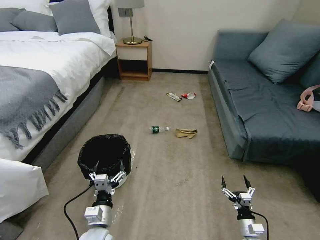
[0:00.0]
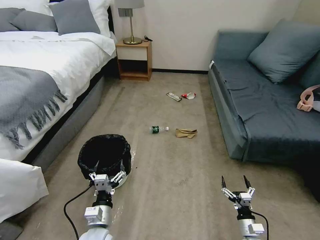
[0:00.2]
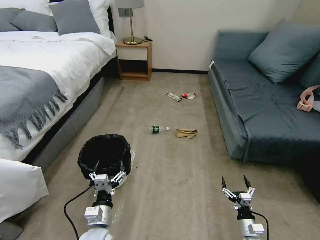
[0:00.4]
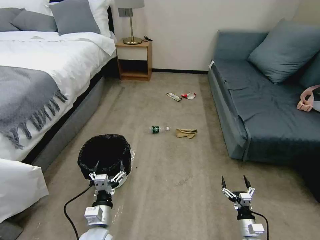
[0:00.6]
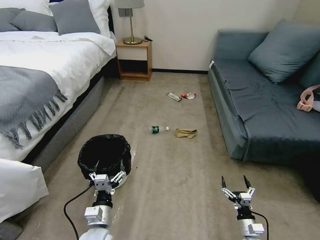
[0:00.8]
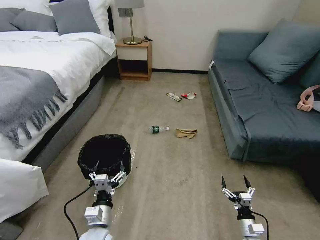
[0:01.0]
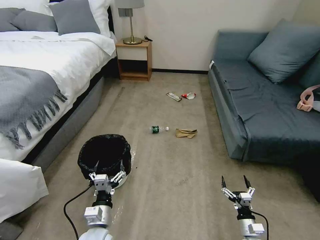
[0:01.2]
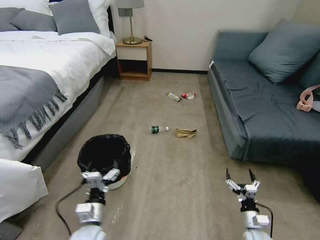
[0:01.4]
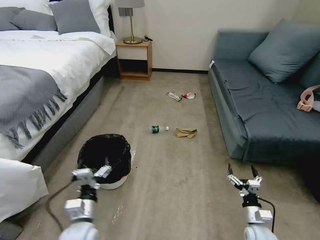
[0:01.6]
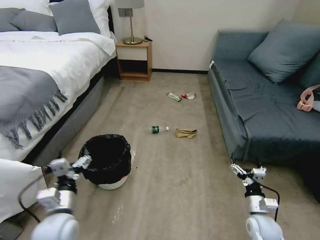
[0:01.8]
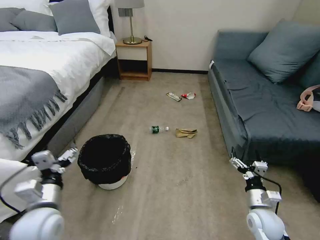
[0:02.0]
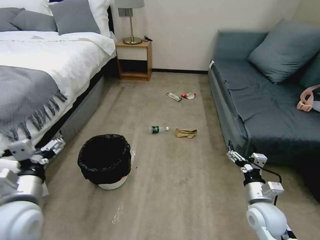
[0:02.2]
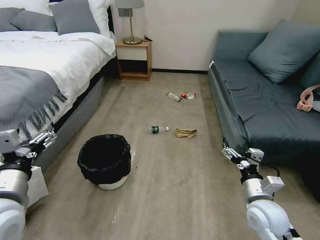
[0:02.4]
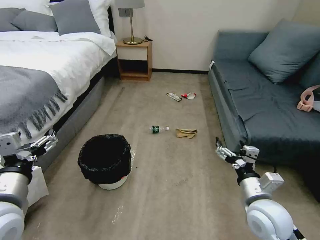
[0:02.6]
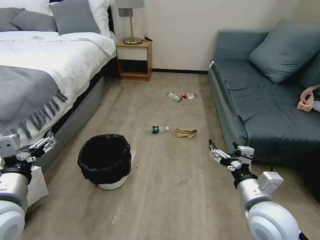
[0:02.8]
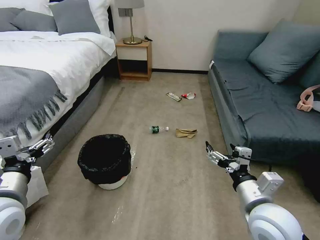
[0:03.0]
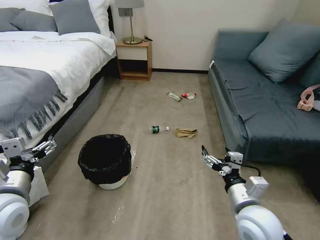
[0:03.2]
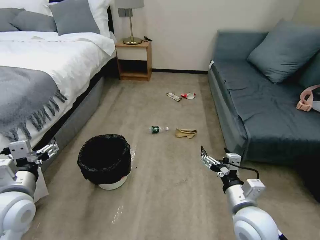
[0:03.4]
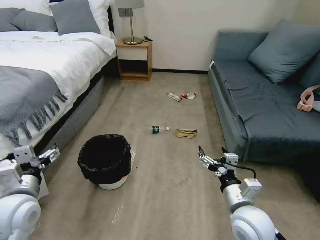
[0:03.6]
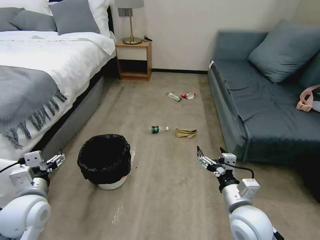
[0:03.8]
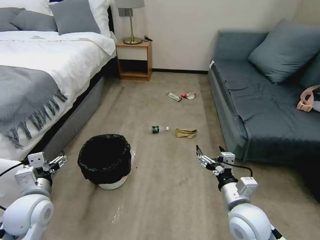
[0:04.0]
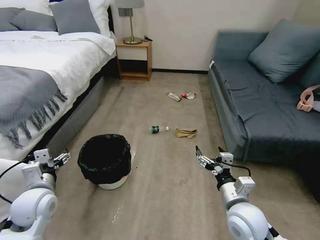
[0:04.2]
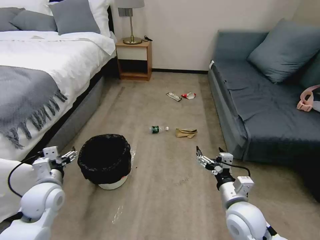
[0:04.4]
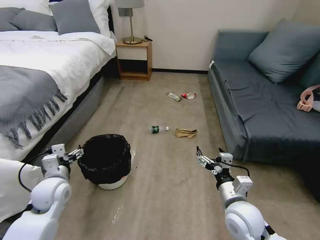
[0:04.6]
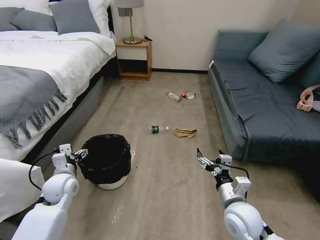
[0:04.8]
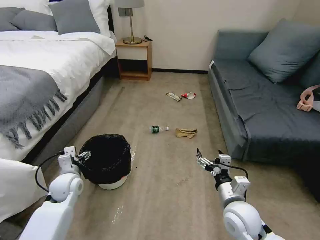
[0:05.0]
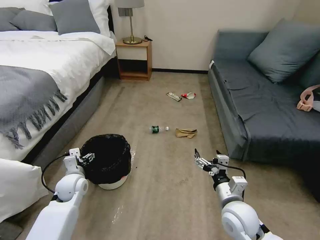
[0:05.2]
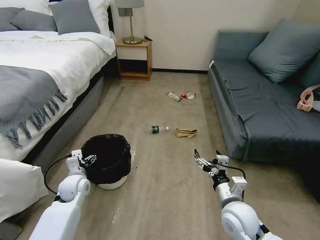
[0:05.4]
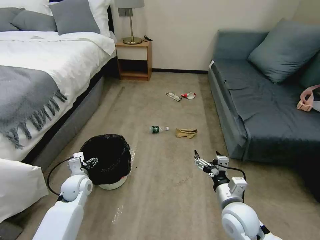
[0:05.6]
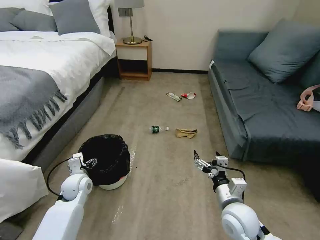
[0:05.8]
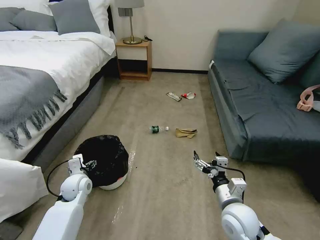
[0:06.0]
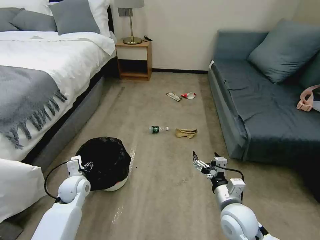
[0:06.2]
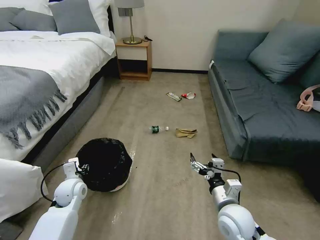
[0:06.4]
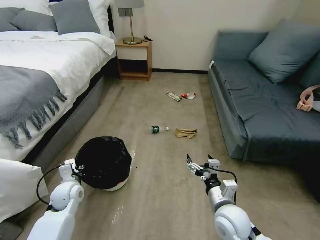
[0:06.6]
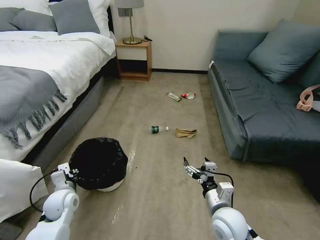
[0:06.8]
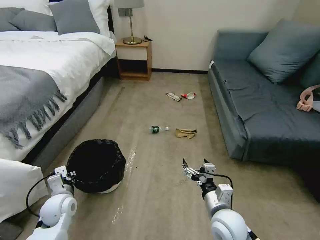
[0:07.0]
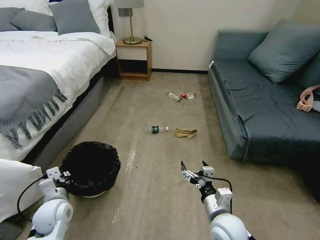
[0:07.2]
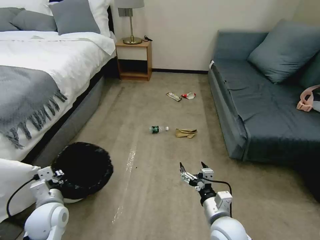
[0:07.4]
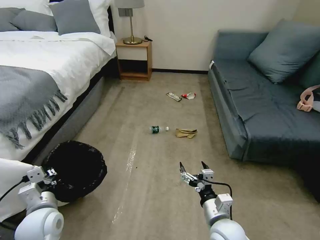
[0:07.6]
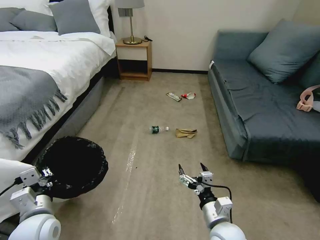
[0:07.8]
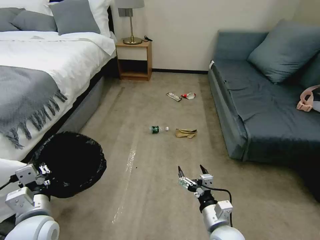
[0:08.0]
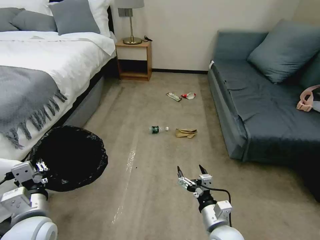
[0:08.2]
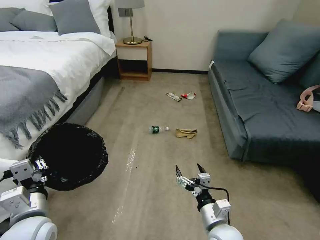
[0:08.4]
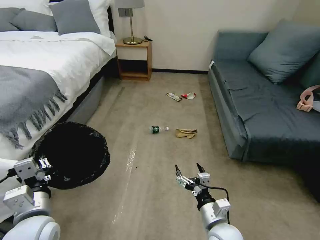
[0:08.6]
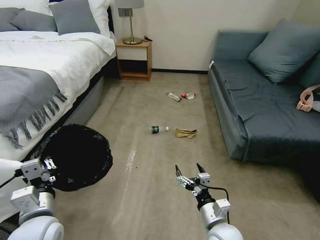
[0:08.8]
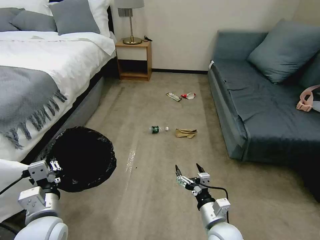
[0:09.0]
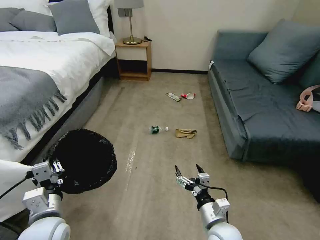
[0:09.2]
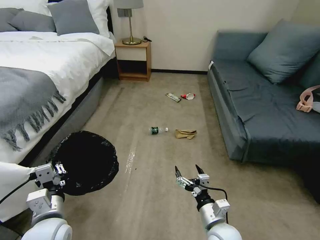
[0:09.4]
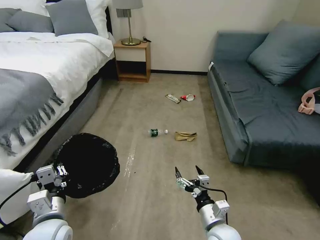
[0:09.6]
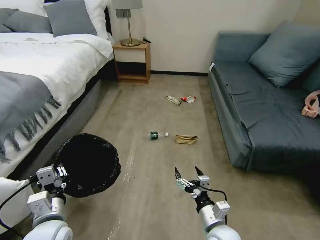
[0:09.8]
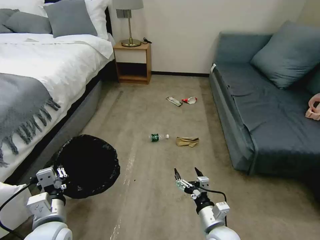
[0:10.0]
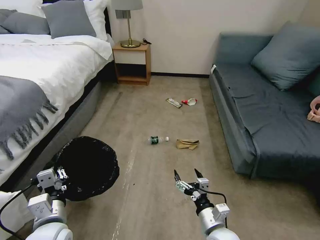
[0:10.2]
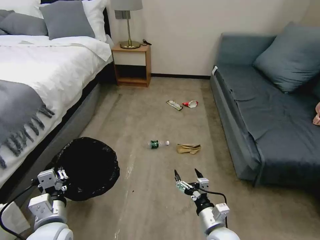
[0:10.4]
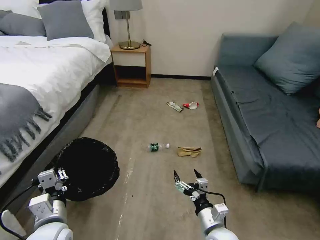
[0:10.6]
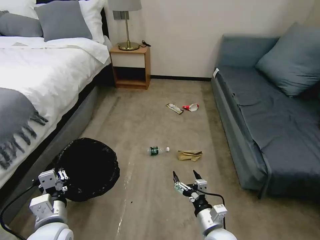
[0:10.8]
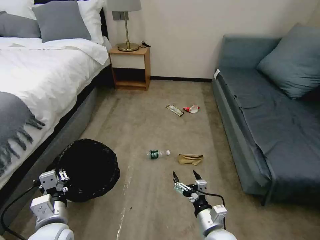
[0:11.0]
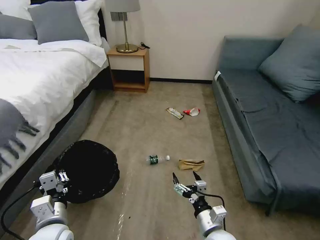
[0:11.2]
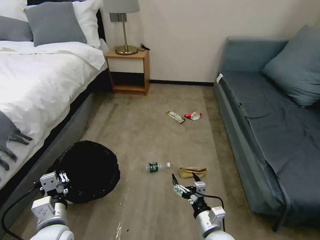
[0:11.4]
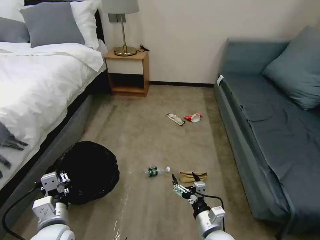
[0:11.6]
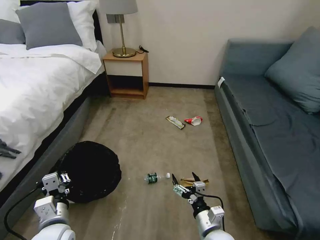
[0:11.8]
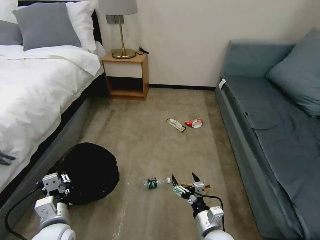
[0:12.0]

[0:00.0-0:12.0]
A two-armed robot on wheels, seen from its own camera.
Task of the whole recording: Pick up the trash bin, then pick up the garbage on the floor and place it into the trash bin.
0:01.6 to 0:03.0: The two grippers go some 25 cm upward and to the left.
0:03.0 to 0:04.4: The right gripper travels downward by some 10 cm, while the left gripper heads downward and forward, covering roughly 15 cm.
0:04.4 to 0:06.0: The left gripper travels downward and forward by about 10 cm.
0:06.0 to 0:07.6: The right gripper ends up approximately 5 cm from where it was. The left gripper travels backward and upward by approximately 15 cm, and closes up.
0:07.6 to 0:09.0: The left gripper ends up about 5 cm from where it was.

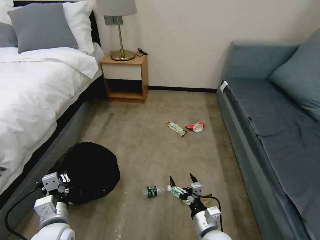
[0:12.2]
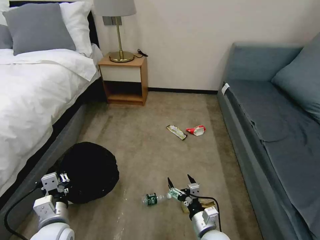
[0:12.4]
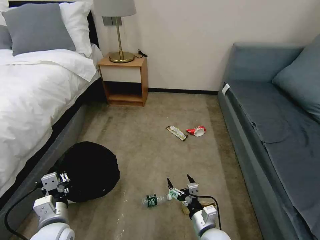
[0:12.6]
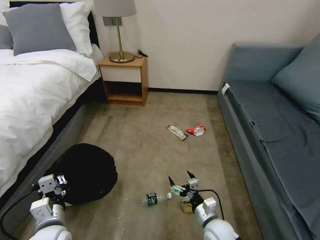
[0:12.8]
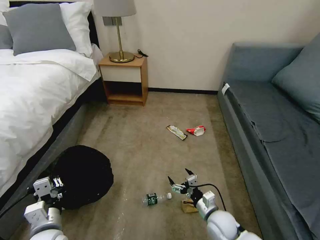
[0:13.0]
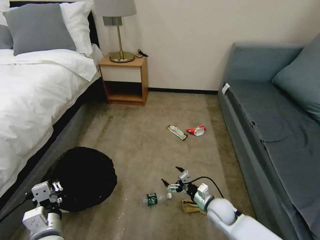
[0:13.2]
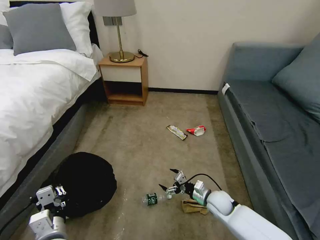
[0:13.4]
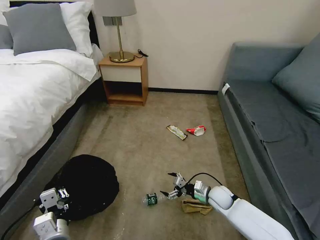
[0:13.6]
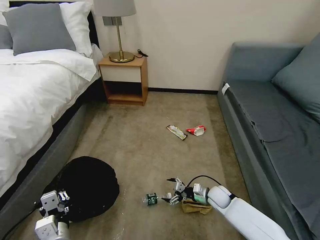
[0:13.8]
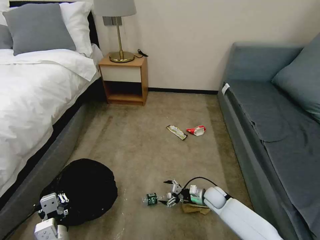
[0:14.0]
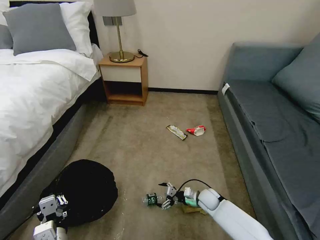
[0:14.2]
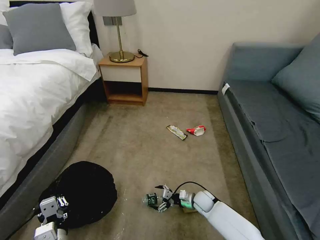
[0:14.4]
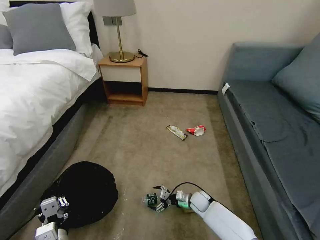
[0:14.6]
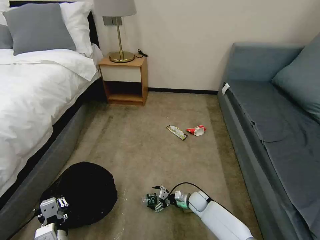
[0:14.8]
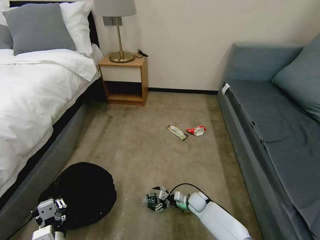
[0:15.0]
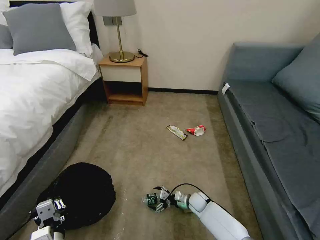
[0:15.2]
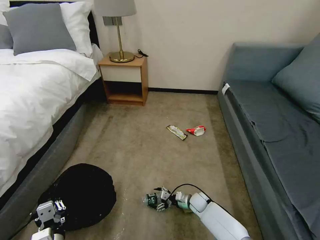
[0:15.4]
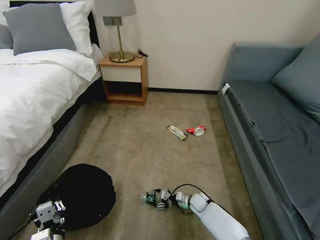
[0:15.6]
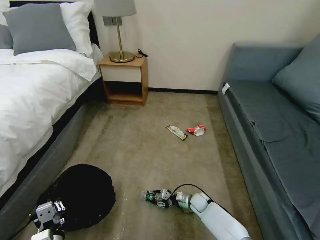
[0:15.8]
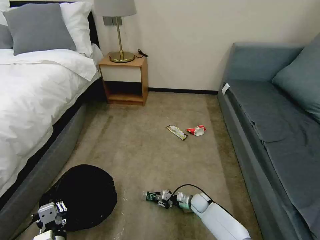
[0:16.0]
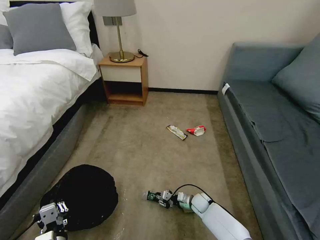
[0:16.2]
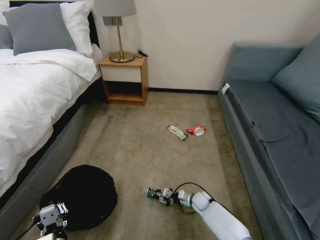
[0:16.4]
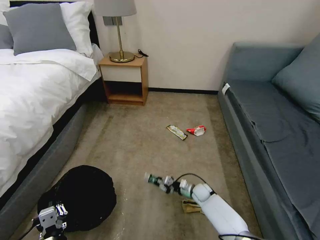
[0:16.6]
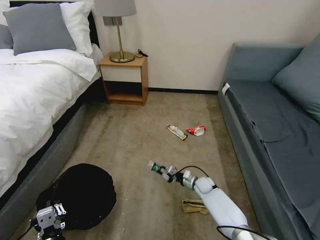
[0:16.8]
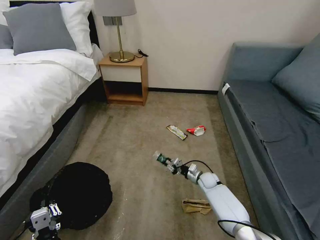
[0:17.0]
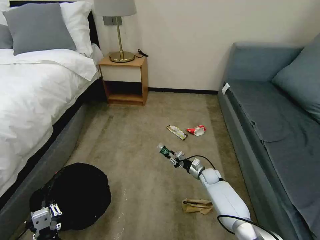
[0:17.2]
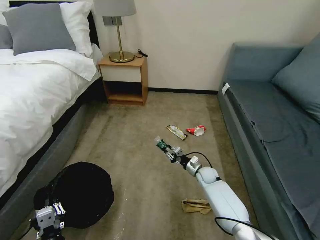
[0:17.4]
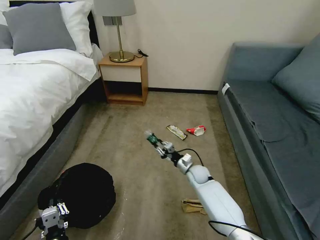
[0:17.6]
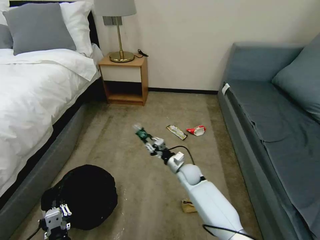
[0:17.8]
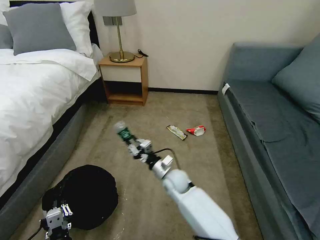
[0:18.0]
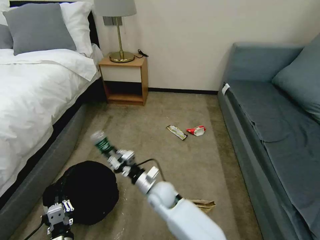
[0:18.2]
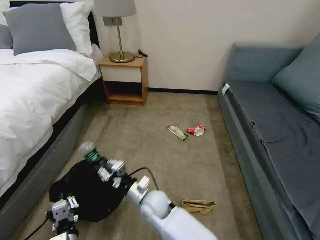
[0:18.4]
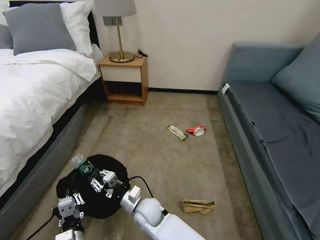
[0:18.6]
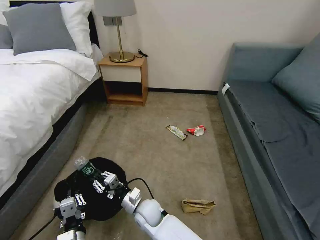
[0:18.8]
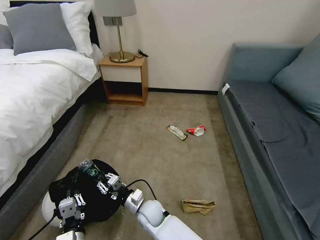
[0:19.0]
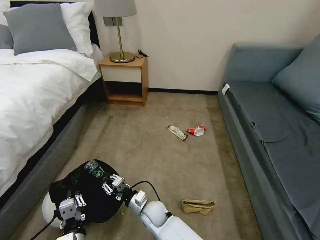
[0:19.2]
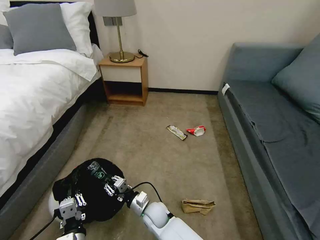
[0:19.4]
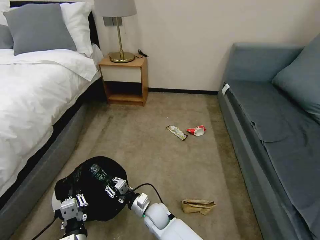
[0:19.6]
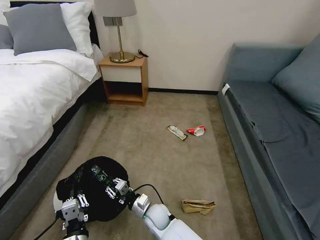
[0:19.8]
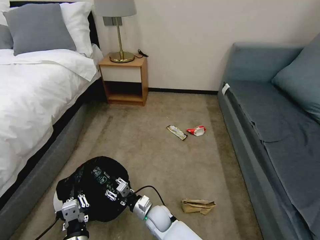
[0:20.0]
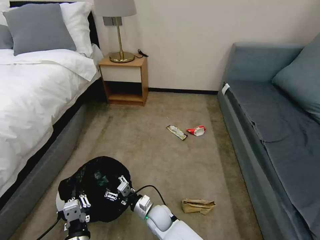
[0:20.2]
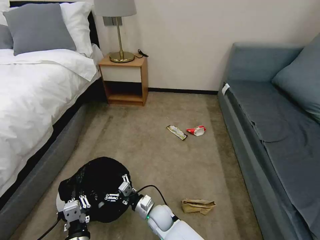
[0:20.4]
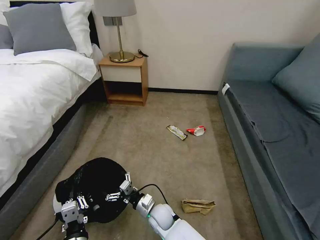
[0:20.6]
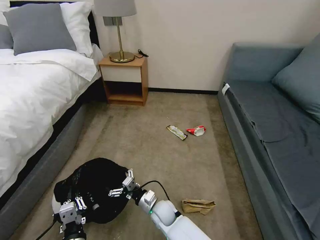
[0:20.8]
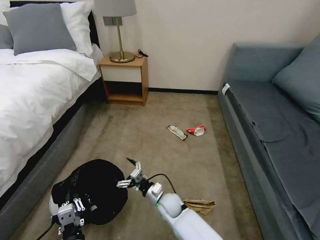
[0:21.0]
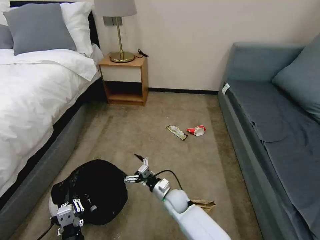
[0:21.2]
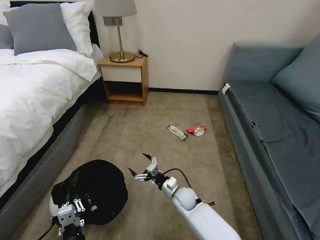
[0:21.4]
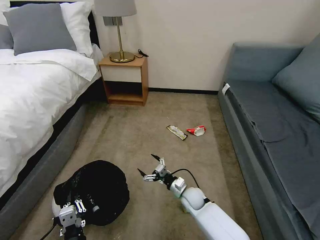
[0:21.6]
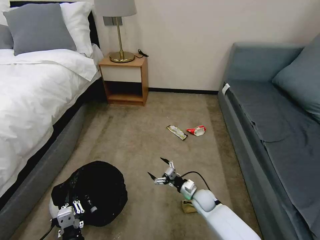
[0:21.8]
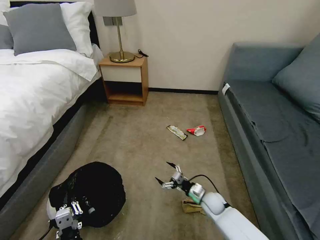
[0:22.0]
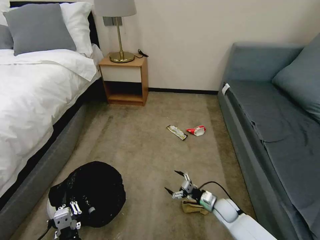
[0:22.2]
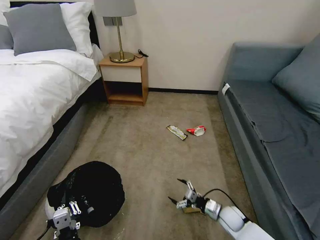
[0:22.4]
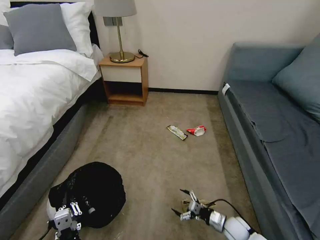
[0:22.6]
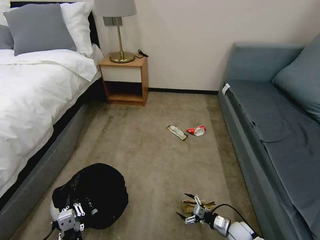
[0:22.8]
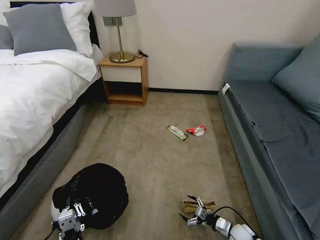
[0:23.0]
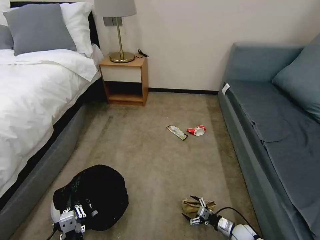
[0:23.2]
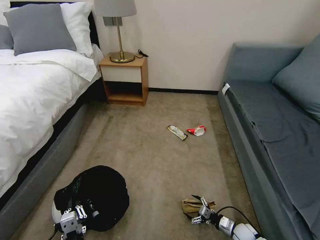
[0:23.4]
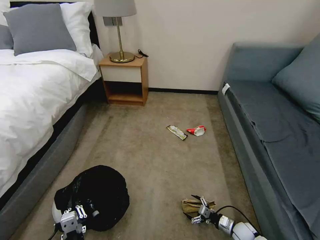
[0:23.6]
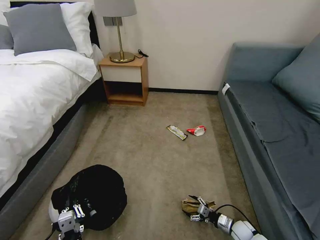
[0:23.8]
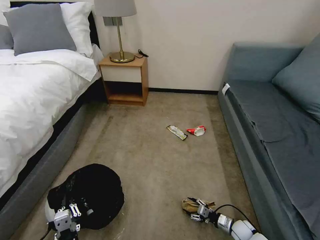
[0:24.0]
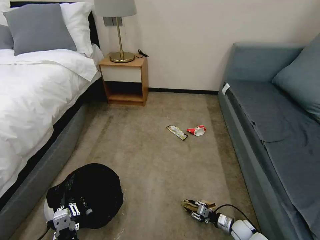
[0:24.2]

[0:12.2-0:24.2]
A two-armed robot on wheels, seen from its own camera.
Task of the whole recording: Pick up the trash bin, then pick up the garbage on the floor and place it into the trash bin.
0:12.2 to 0:13.8: The right gripper goes about 20 cm forward, to the right and downward. The left gripper shifts by approximately 5 cm.
0:13.8 to 0:15.2: The right gripper is displaced downward and to the left by roughly 10 cm.
0:15.2 to 0:16.6: The right gripper closes its fingers.
0:16.6 to 0:18.2: The right gripper travels to the left and upward by approximately 25 cm.
0:18.2 to 0:19.8: The right gripper heads downward and backward, covering about 10 cm; the left gripper goes some 5 cm to the right.
0:19.8 to 0:21.2: The right gripper is displaced to the right and forward by about 10 cm, and opens up.
0:21.2 to 0:22.6: The right gripper is displaced to the right by approximately 25 cm.
0:22.6 to 0:24.2: The right gripper shifts about 10 cm downward and to the right, and closes.
